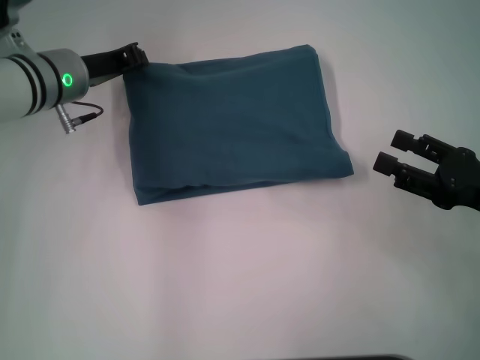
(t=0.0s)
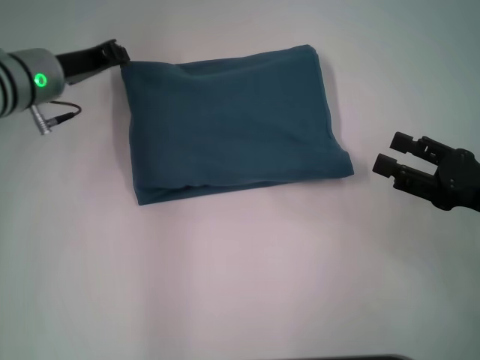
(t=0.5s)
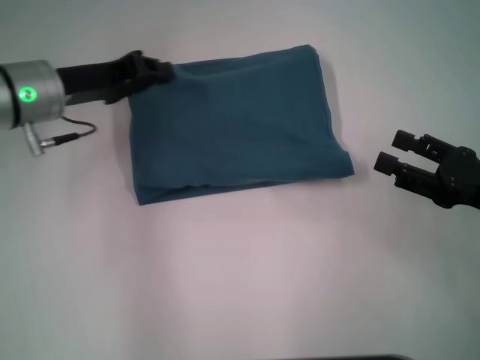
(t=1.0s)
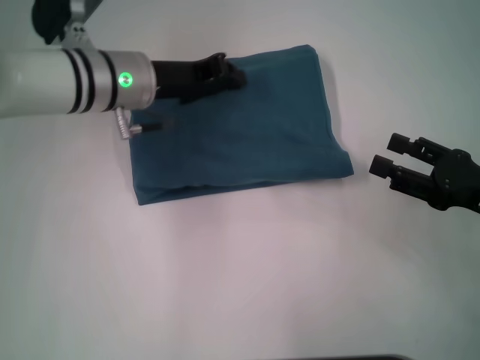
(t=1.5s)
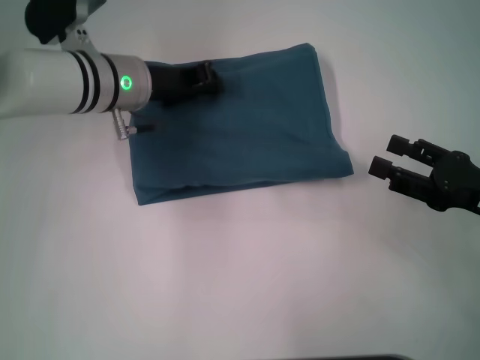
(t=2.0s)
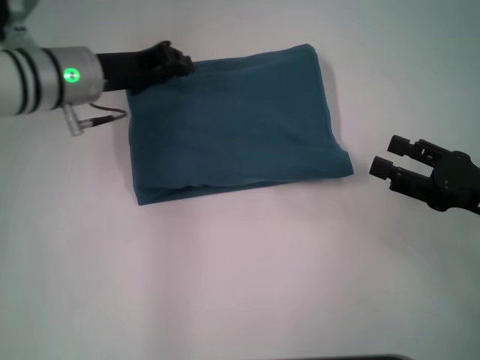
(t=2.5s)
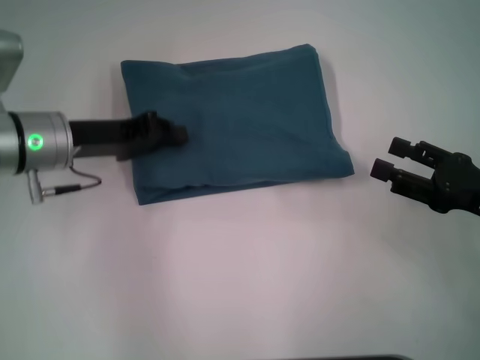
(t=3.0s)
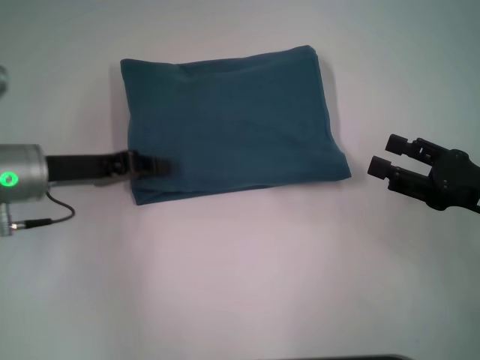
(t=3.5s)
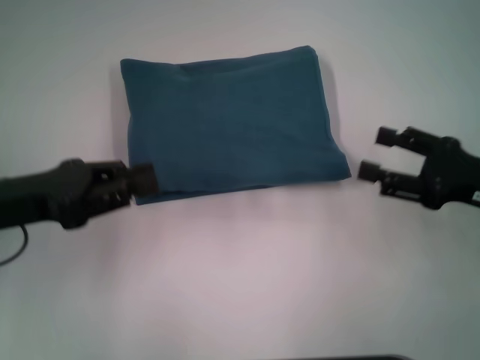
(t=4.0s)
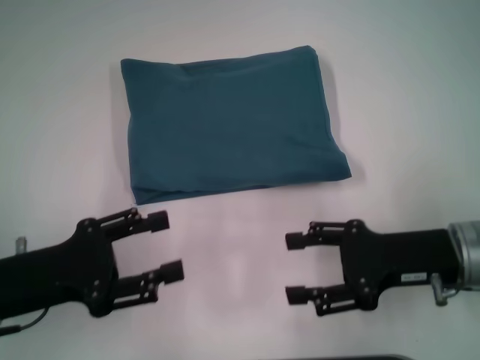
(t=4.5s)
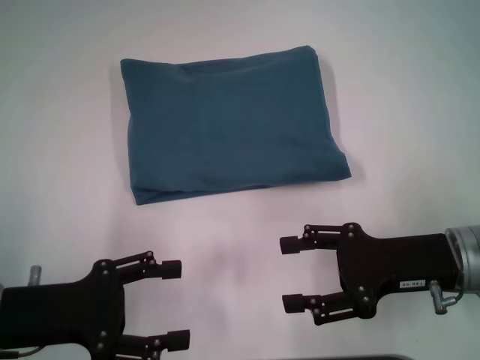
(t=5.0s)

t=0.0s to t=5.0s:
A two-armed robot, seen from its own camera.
t=0.0s to t=2.5s: The left gripper goes to the right and returns, approximately 5 cm each way.
t=2.5s to t=5.0s: The right gripper moves to the left, roughly 10 cm; the left gripper shifts about 20 cm backward, and opens.

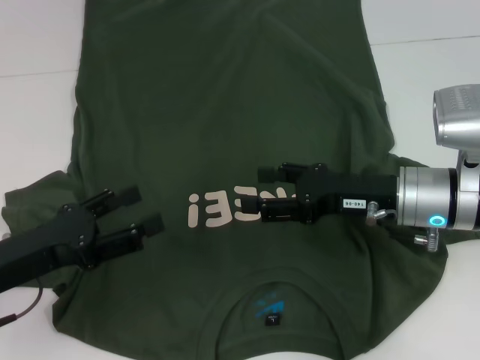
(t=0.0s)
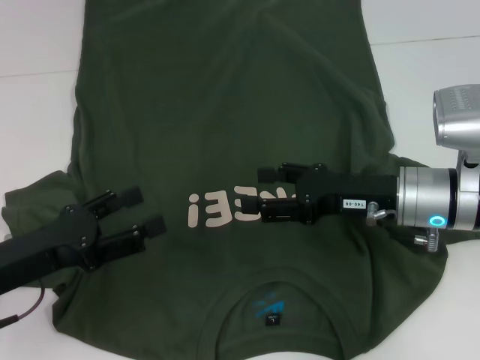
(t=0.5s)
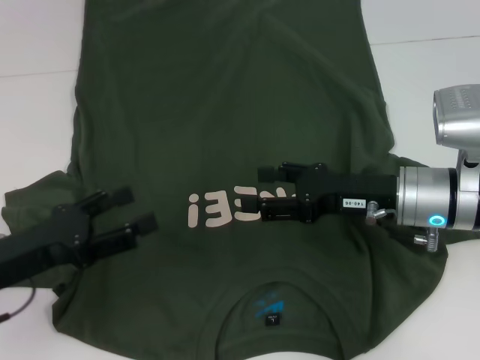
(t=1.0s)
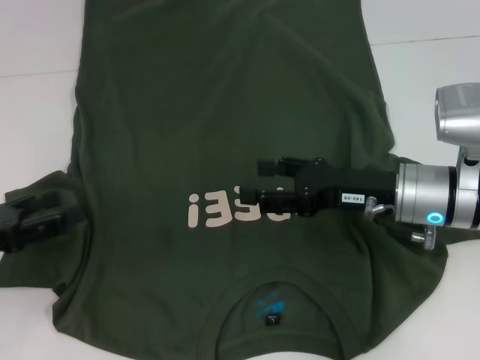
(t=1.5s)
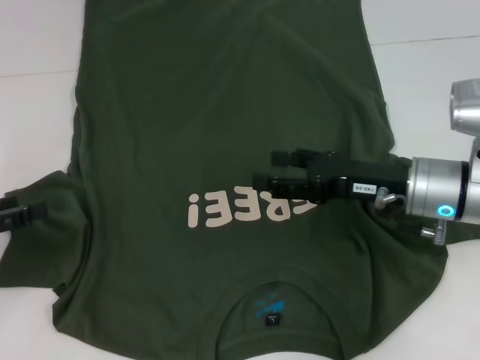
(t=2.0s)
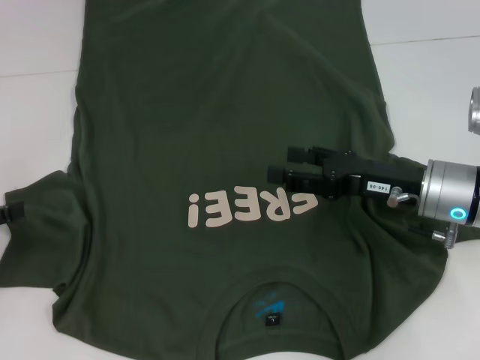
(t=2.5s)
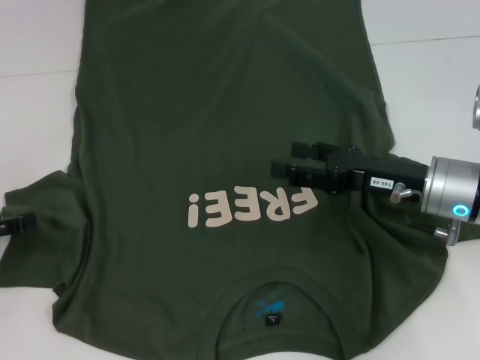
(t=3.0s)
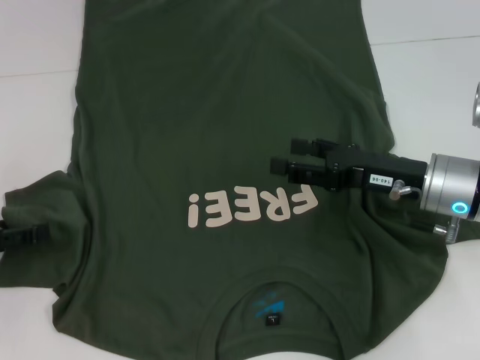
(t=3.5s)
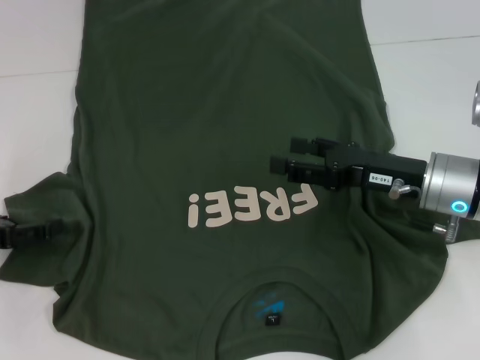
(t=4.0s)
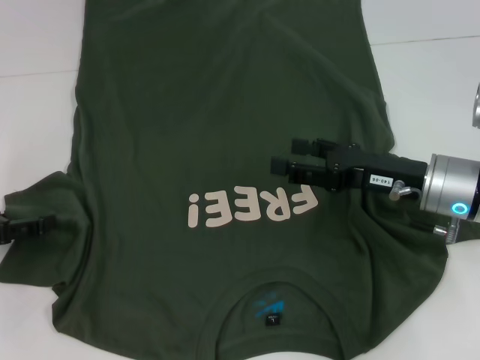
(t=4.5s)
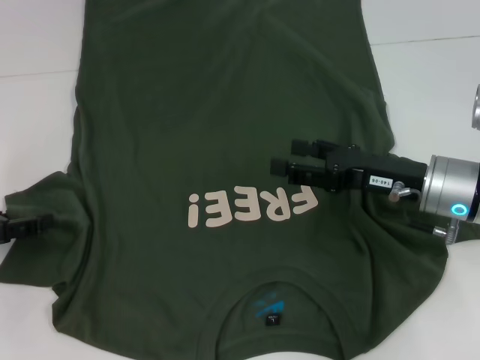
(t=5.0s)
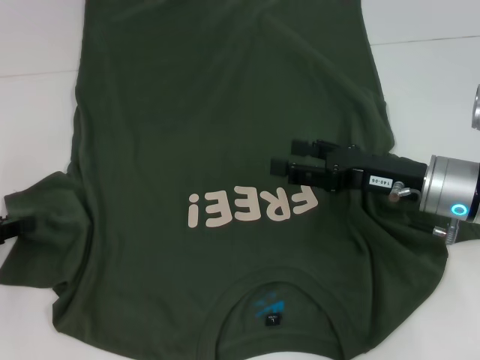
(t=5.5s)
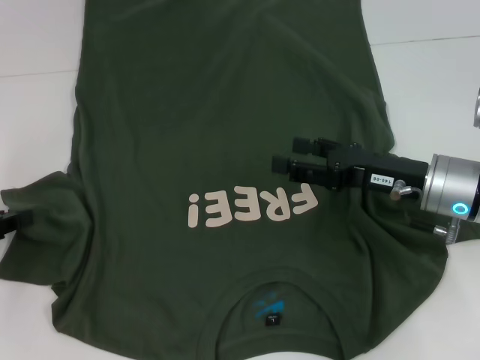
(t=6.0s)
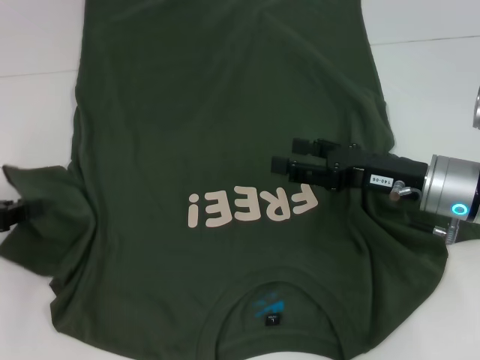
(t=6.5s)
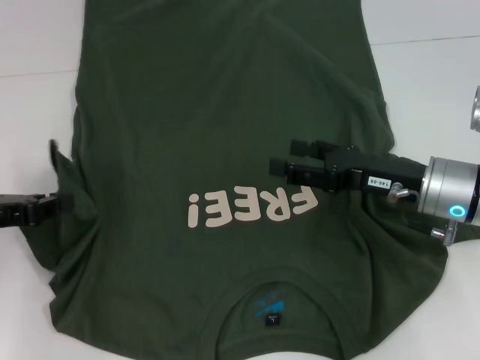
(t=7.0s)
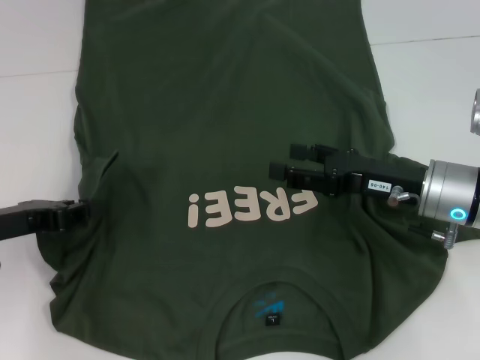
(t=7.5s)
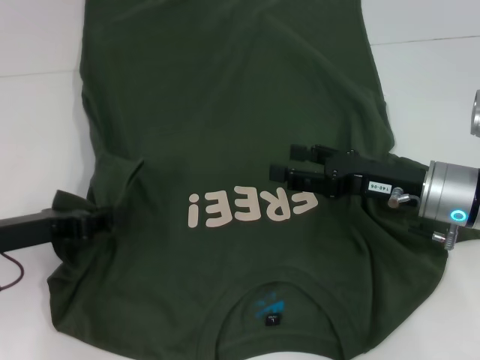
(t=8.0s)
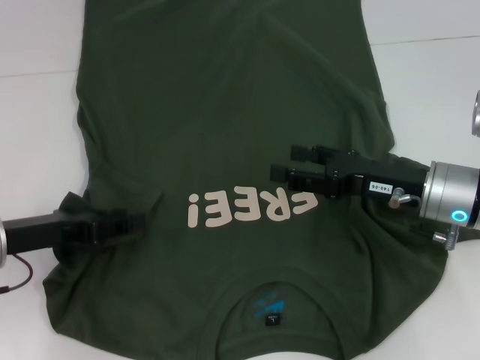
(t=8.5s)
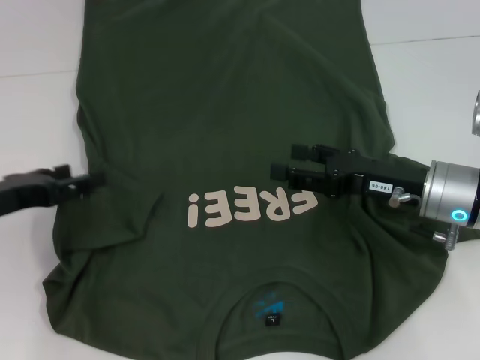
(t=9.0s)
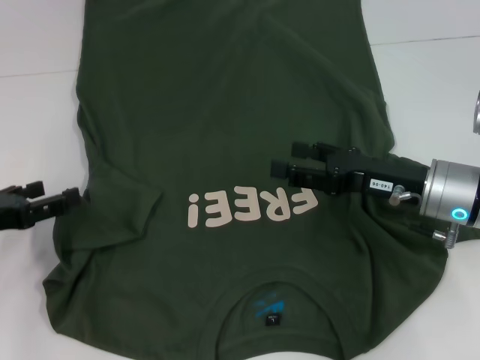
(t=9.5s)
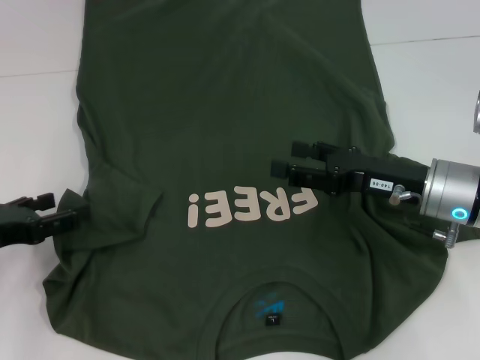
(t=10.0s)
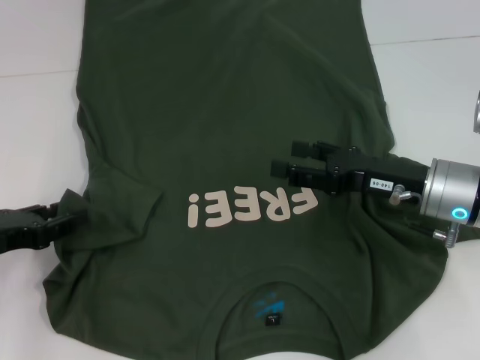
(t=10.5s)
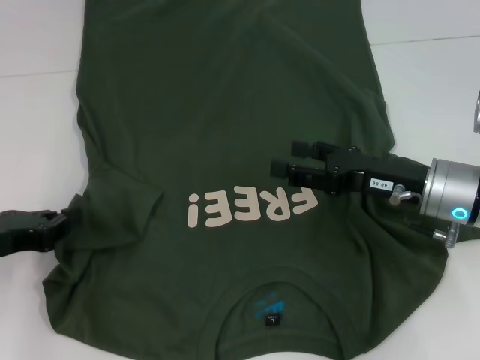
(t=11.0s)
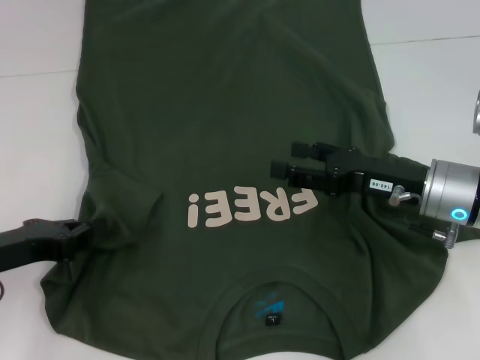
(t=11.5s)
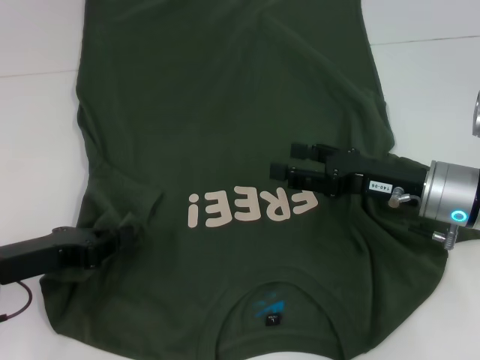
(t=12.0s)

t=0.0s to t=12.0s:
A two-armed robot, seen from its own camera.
t=0.0s to t=2.0s: The left gripper travels to the left by some 10 cm.
t=2.0s to t=4.0s: There are only small adjustments of the grippers.
t=4.0s to t=6.0s: The left gripper closes.
t=6.0s to t=8.0s: The left gripper shifts roughly 10 cm to the right.
t=8.0s to t=10.0s: The left gripper opens.
t=10.0s to t=12.0s: The left gripper closes.

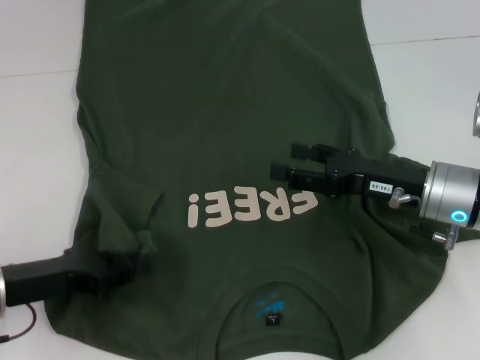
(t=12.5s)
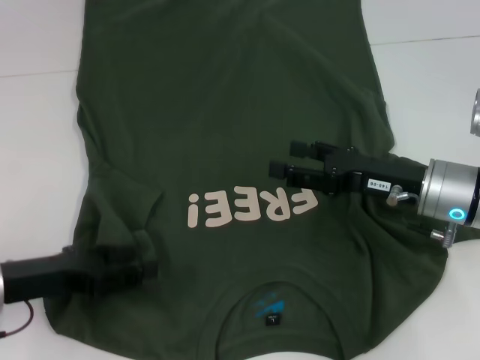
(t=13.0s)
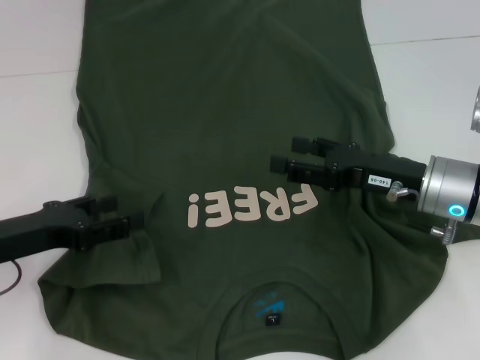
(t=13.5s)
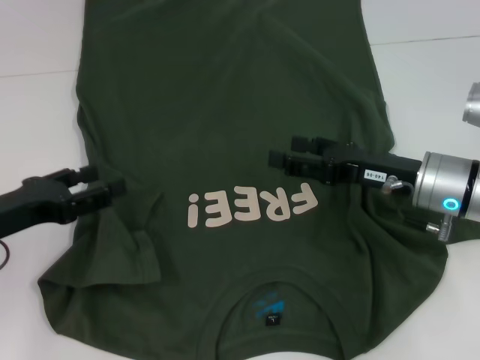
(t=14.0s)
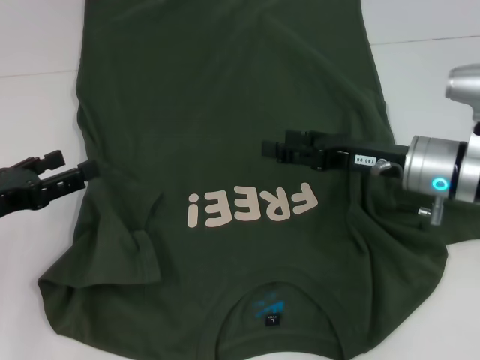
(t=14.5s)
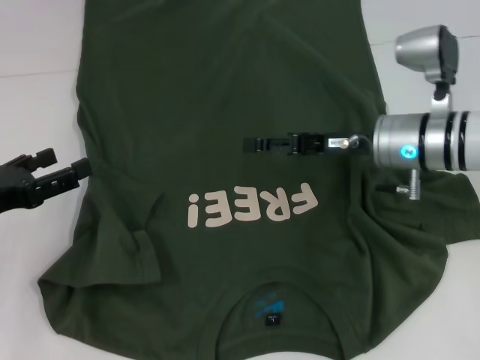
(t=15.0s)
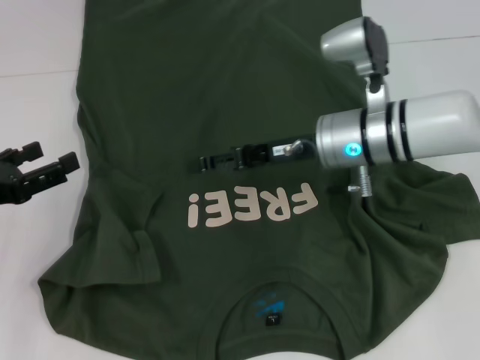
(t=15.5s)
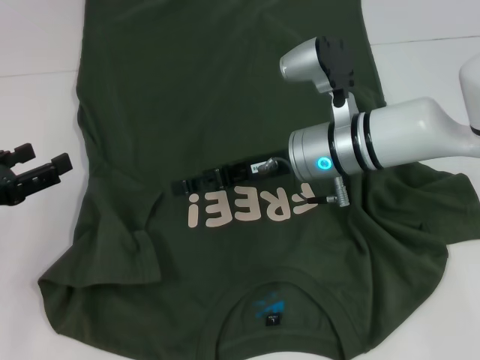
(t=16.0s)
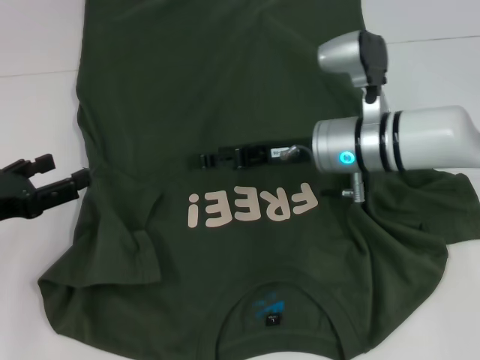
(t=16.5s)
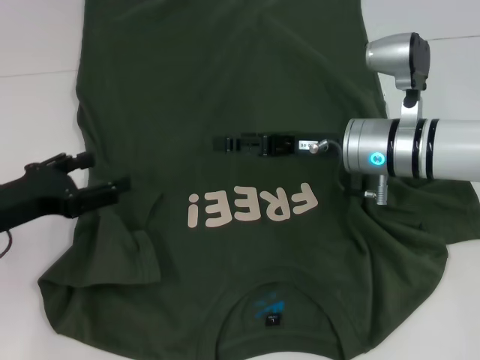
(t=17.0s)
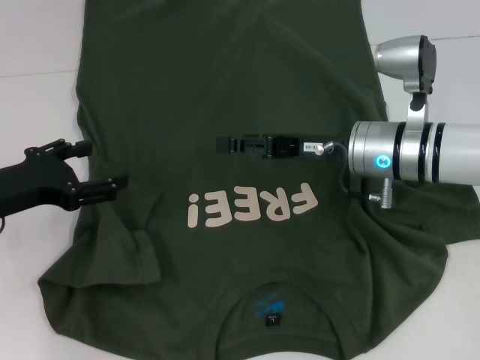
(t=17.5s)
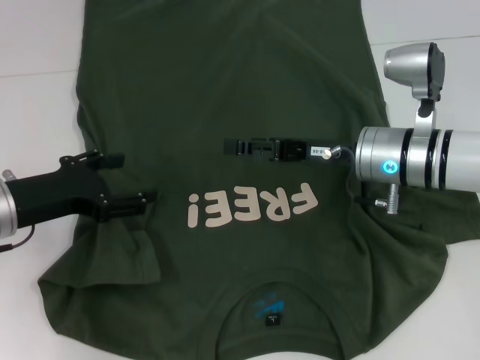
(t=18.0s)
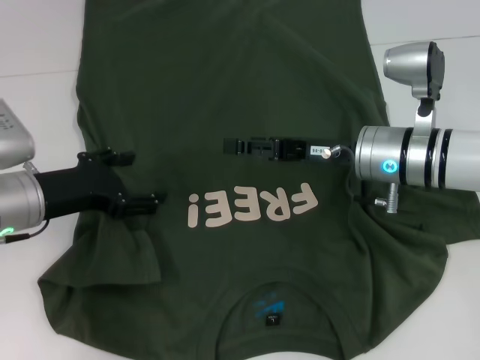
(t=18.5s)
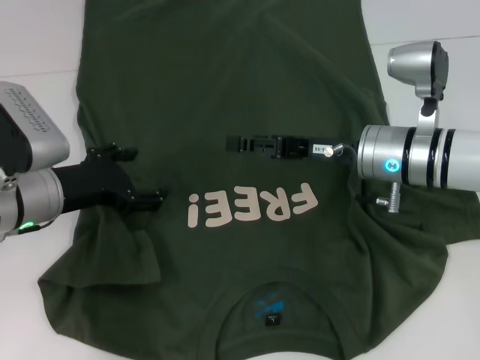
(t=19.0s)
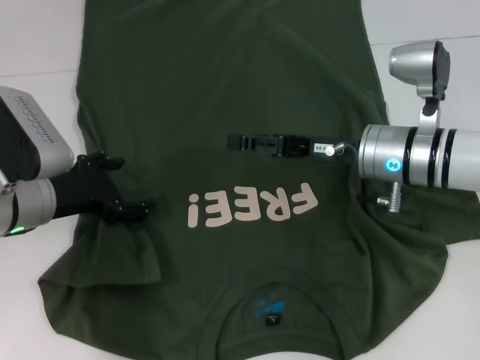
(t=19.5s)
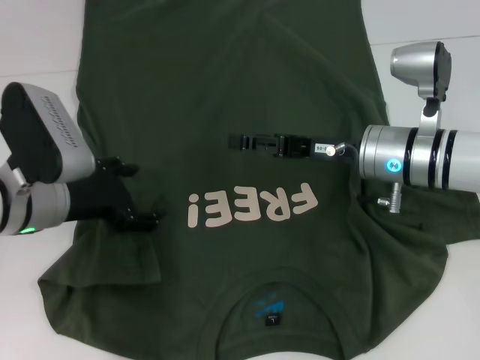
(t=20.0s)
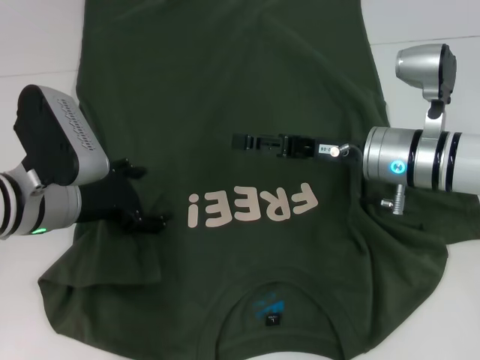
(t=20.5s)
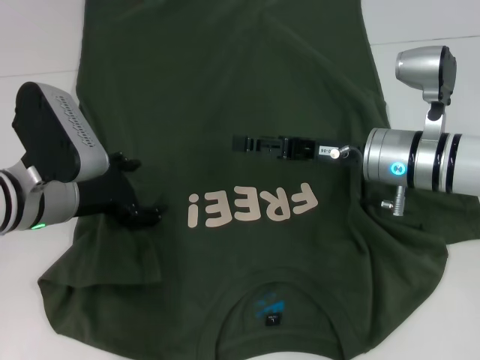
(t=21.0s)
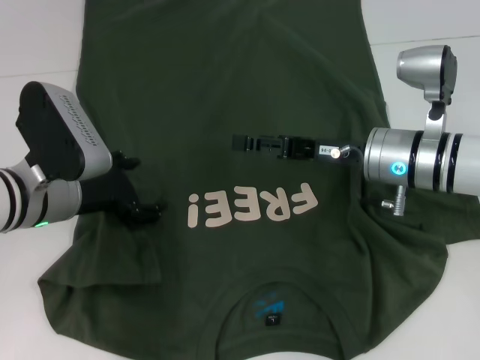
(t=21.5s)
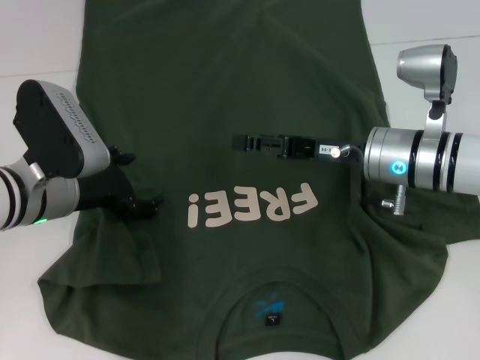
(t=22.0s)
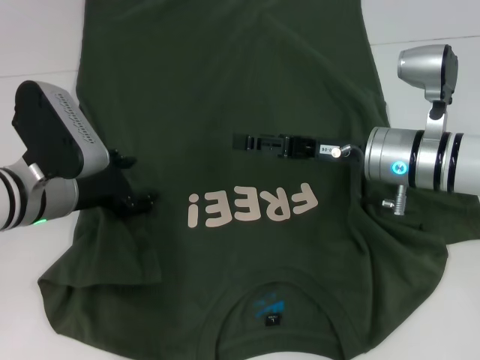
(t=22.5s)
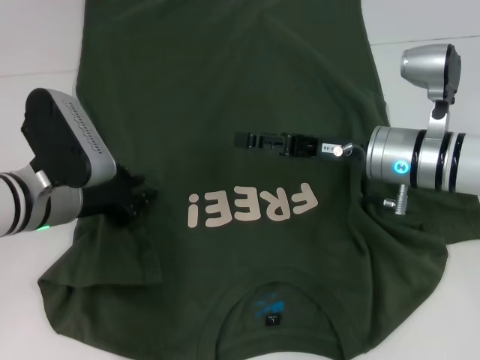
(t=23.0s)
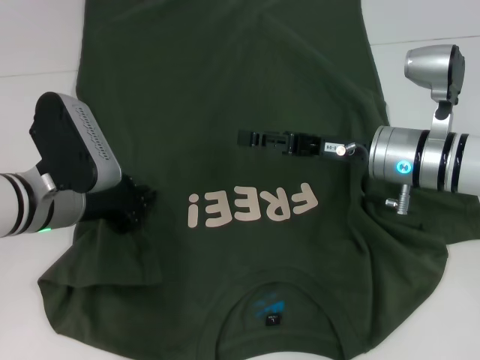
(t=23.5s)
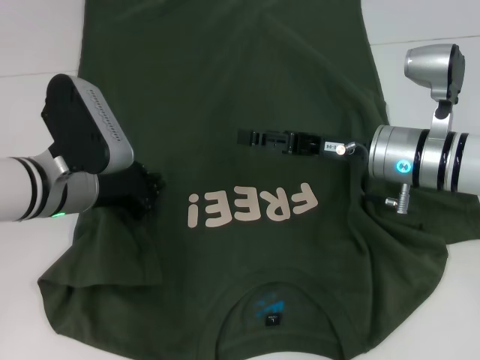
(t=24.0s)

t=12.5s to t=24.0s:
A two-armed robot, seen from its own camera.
t=12.5s to t=14.5s: The left gripper changes place by approximately 5 cm, and opens its fingers.
t=14.5s to t=16.5s: The right gripper moves to the left, roughly 10 cm.
t=16.5s to t=18.5s: The left gripper goes some 10 cm to the right.
t=18.5s to t=20.0s: There are only small adjustments of the grippers.
t=20.0s to t=22.0s: There are only small adjustments of the grippers.
t=22.0s to t=24.0s: The left gripper closes its fingers.
